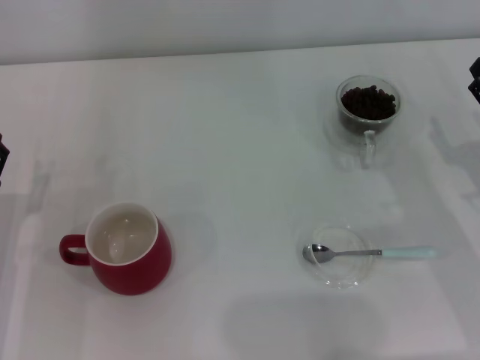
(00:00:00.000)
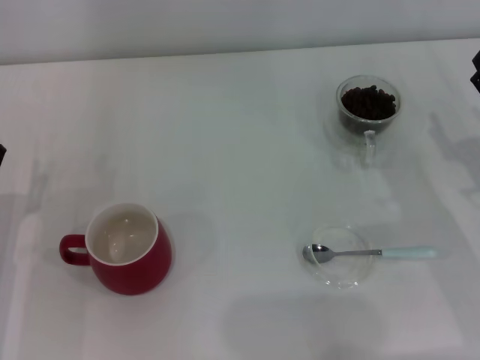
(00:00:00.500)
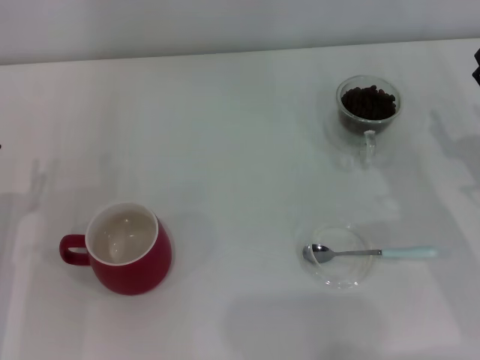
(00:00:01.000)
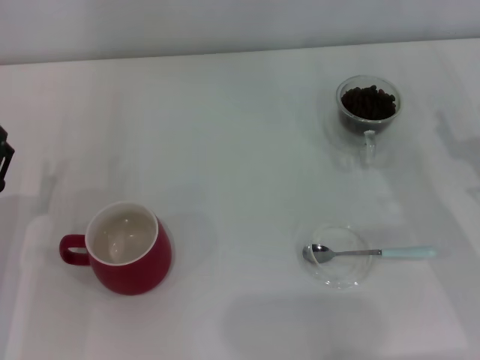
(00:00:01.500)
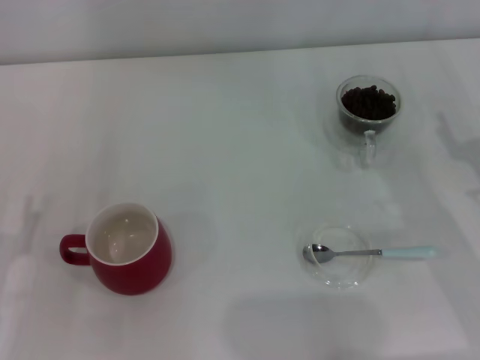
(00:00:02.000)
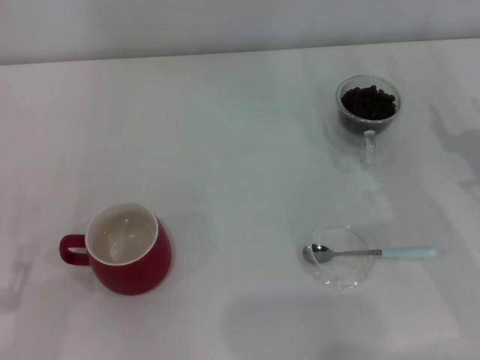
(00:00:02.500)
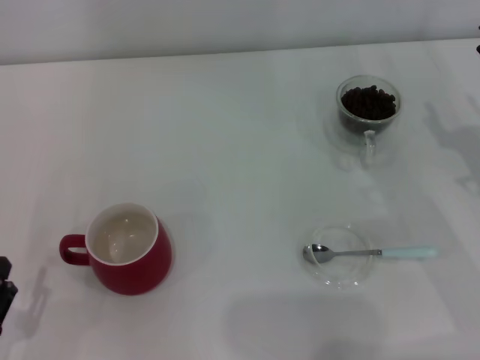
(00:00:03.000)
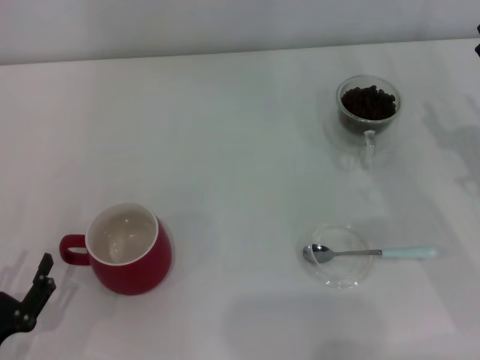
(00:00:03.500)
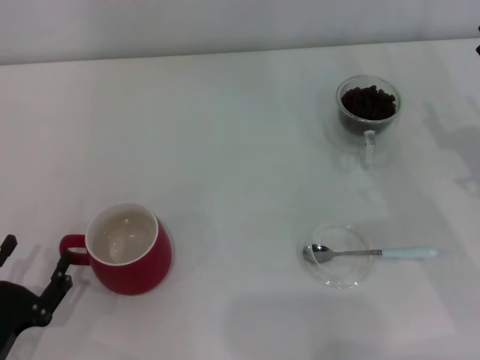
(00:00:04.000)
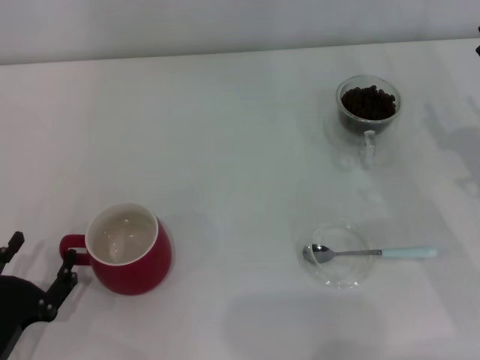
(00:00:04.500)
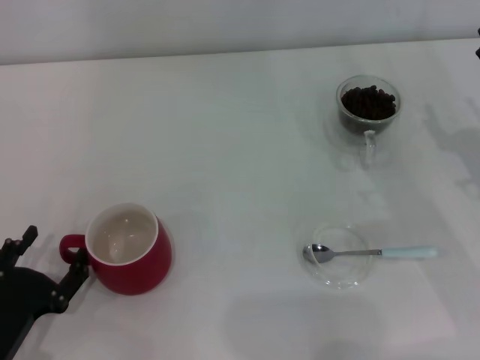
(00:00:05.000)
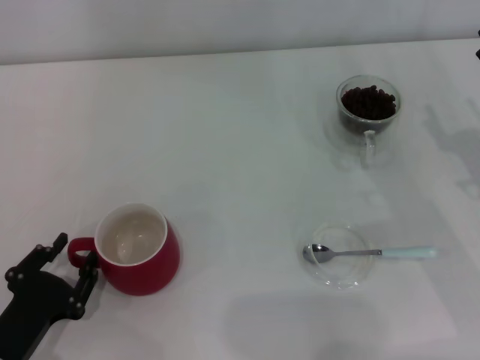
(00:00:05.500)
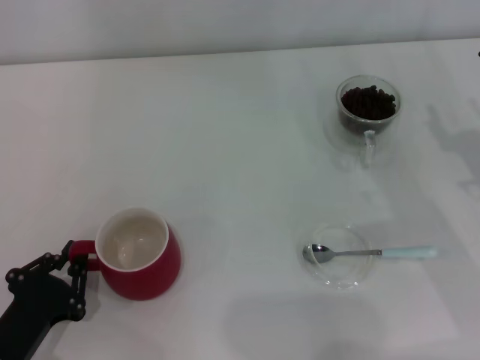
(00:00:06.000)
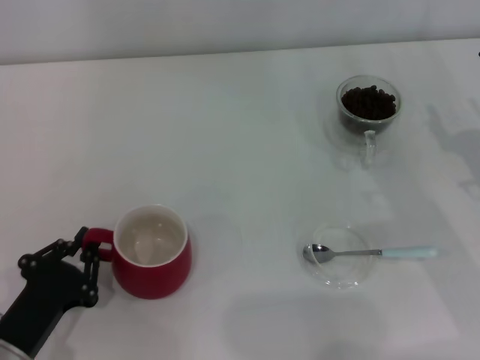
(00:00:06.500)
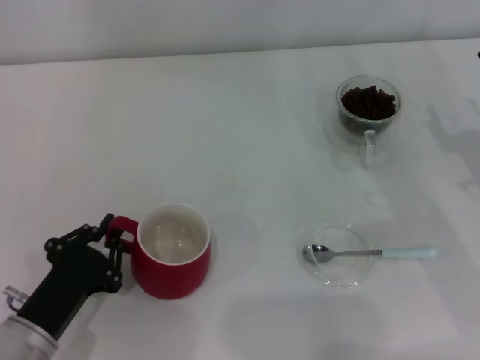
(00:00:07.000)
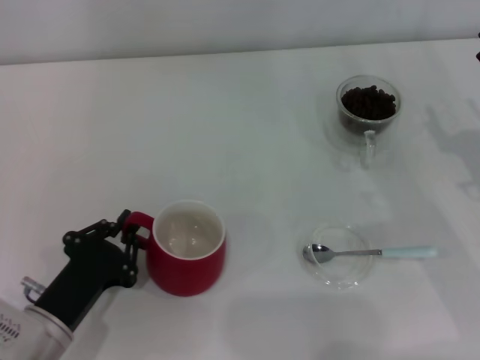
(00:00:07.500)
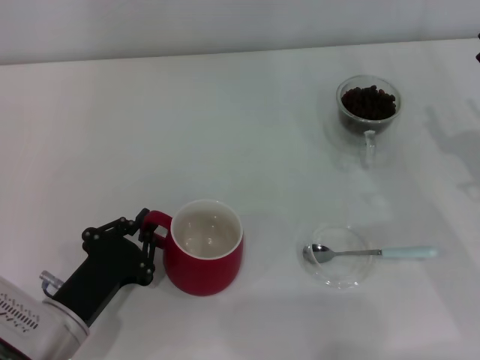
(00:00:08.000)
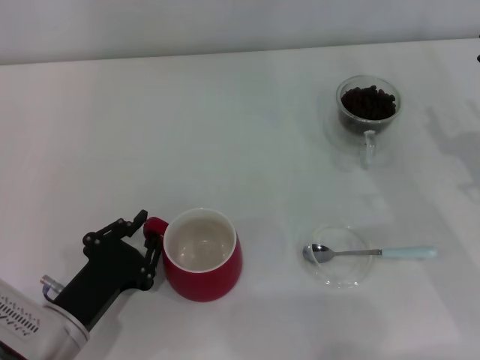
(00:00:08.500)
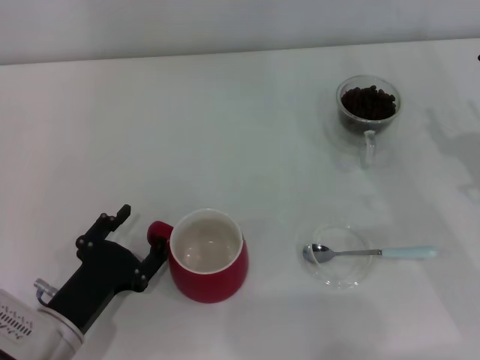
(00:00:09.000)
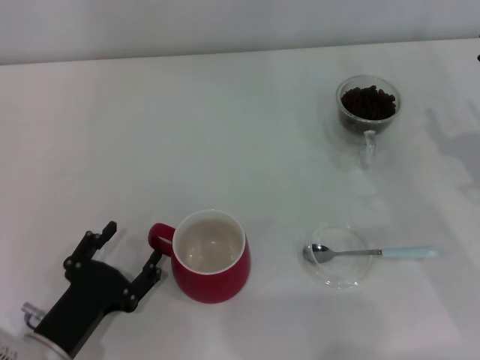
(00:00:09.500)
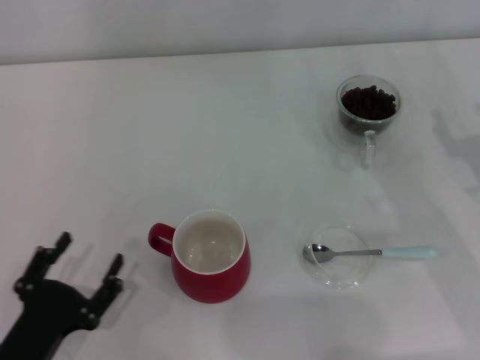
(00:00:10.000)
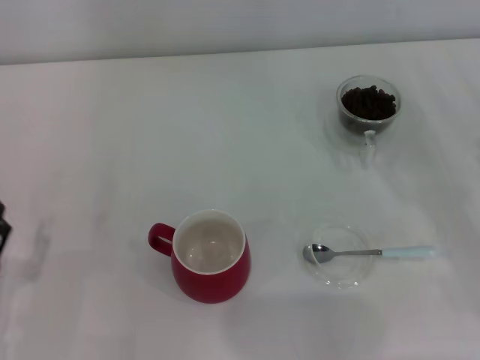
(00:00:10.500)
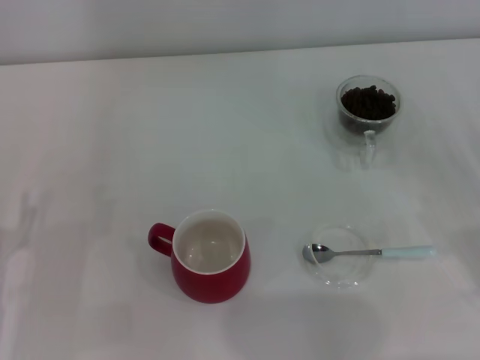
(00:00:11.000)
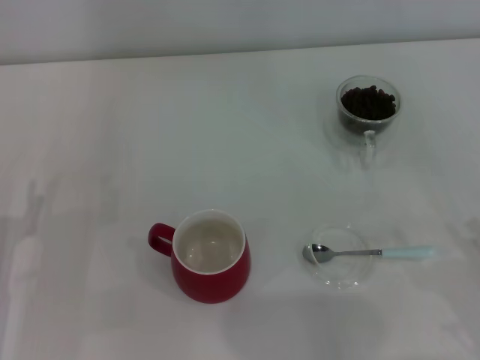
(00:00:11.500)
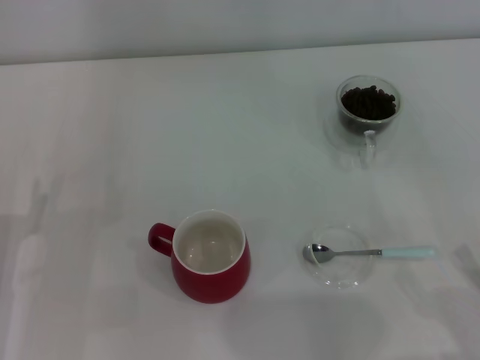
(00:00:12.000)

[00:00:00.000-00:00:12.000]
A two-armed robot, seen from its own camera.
Task of the whole recording: Use a blue spoon to take out the coffee beans from the glass and pour them into the red cup.
Step, 00:00:00.000 to 00:00:09.500: Move the cup to the center of view with the left gripper.
00:00:02.000 to 00:00:04.000: The left gripper is displaced backward by about 5 cm.
00:00:04.000 to 00:00:06.000: The left gripper closes its fingers.
00:00:06.000 to 00:00:08.000: The left gripper shifts approximately 5 cm to the right.
00:00:08.000 to 00:00:10.000: The left gripper is displaced backward by approximately 5 cm, and opens.
00:00:10.000 to 00:00:12.000: The left gripper is displaced forward by about 10 cm; the right gripper is displaced backward by roughly 20 cm.

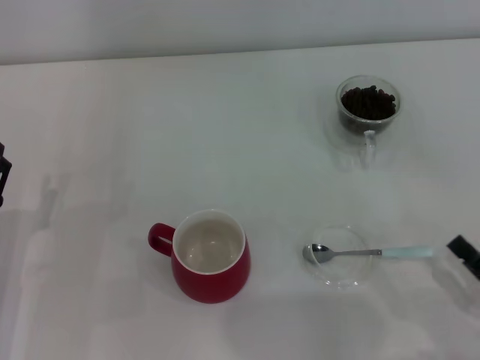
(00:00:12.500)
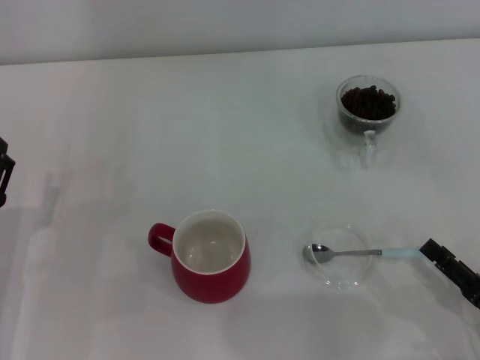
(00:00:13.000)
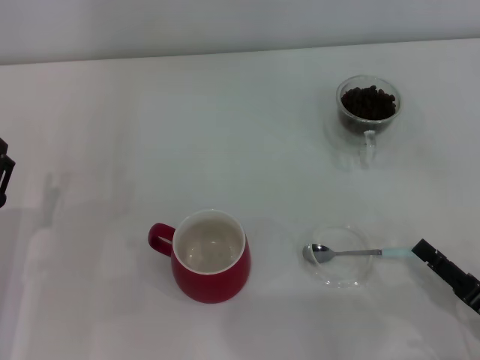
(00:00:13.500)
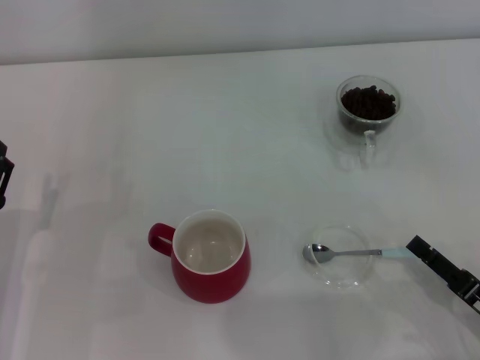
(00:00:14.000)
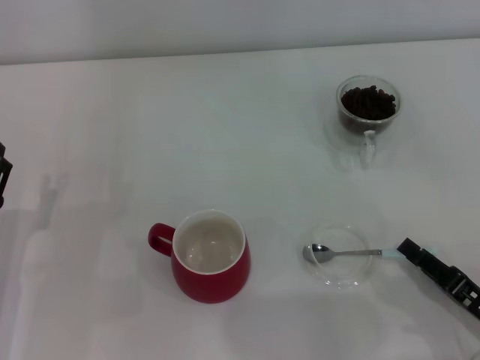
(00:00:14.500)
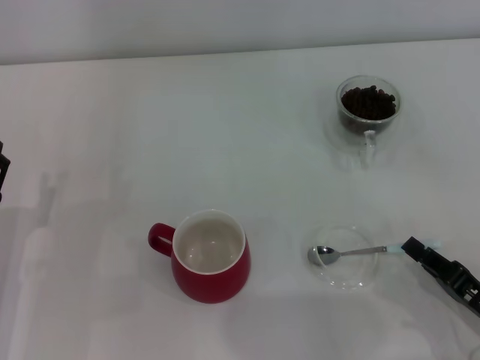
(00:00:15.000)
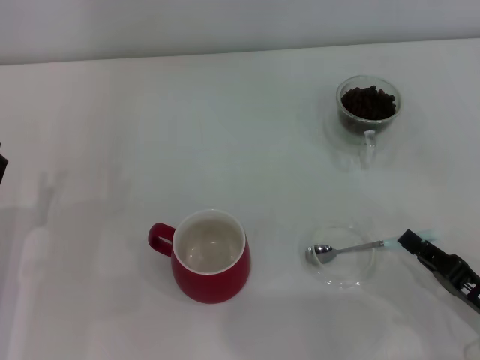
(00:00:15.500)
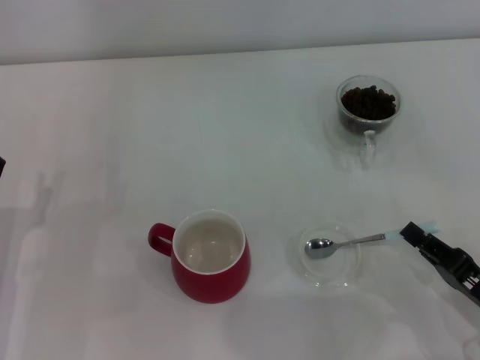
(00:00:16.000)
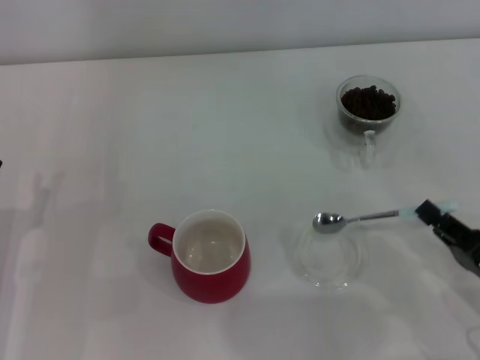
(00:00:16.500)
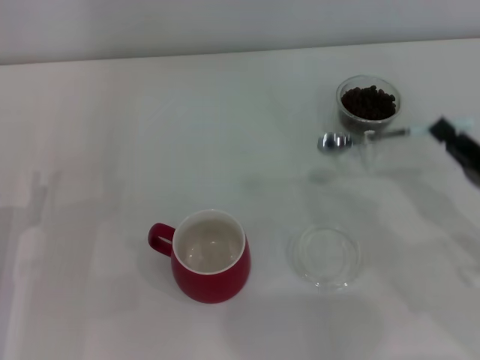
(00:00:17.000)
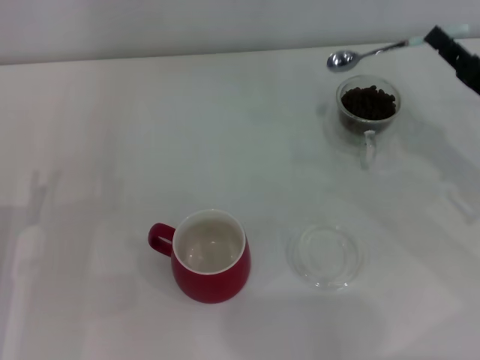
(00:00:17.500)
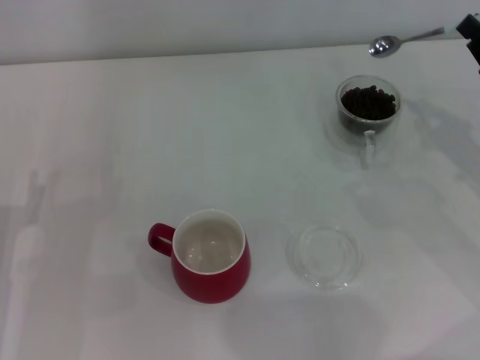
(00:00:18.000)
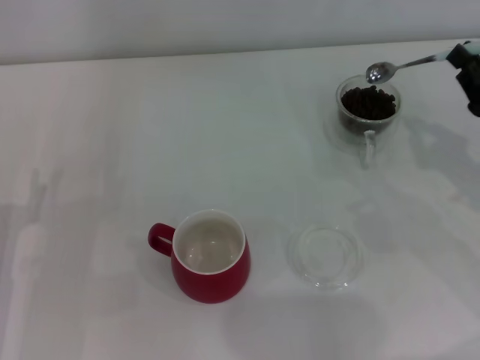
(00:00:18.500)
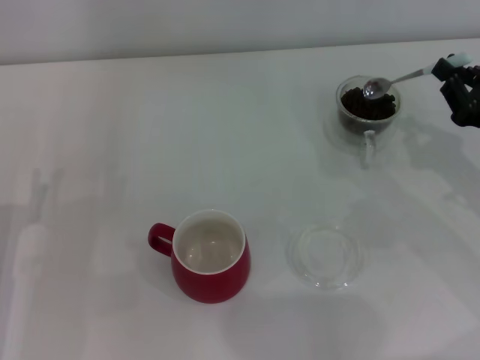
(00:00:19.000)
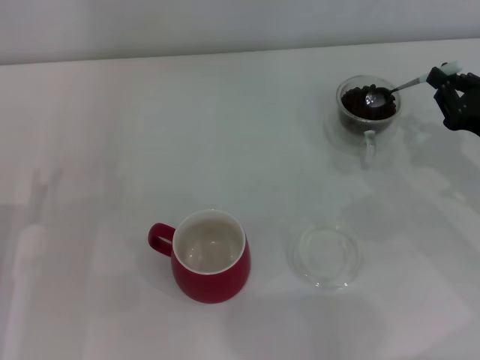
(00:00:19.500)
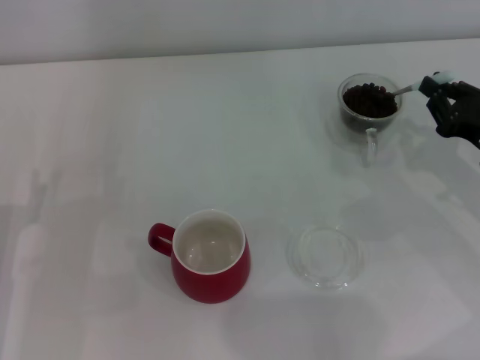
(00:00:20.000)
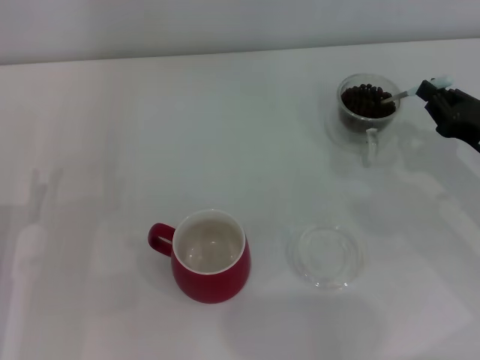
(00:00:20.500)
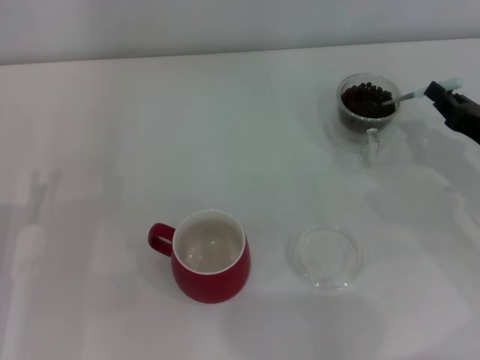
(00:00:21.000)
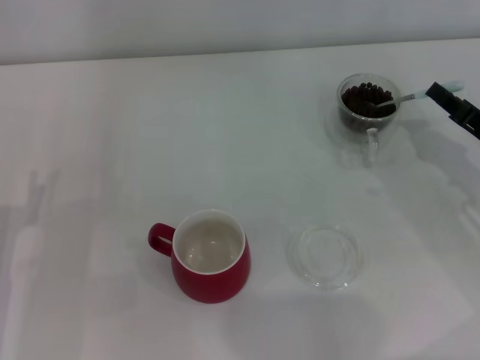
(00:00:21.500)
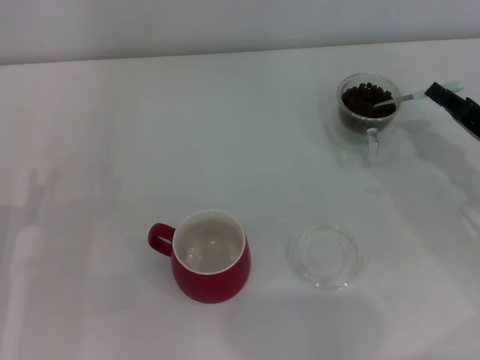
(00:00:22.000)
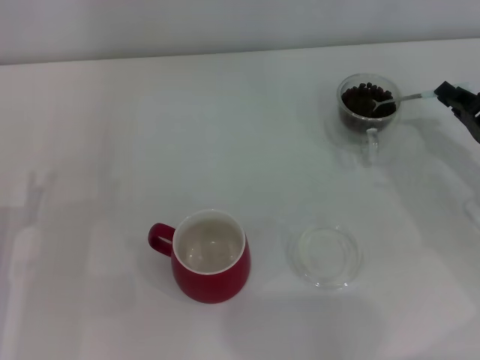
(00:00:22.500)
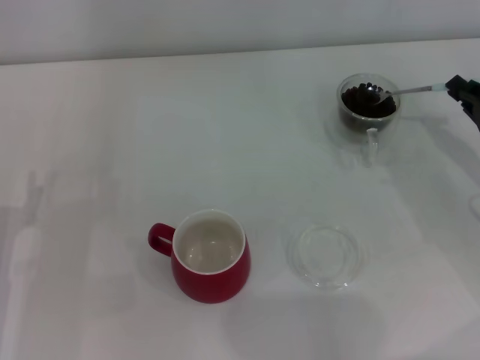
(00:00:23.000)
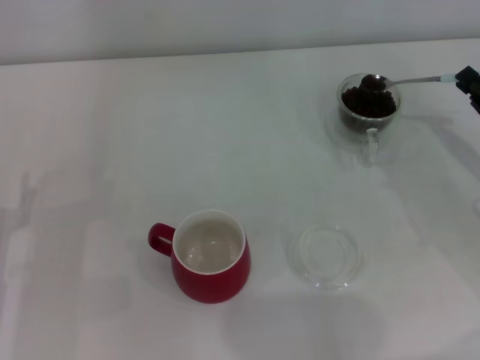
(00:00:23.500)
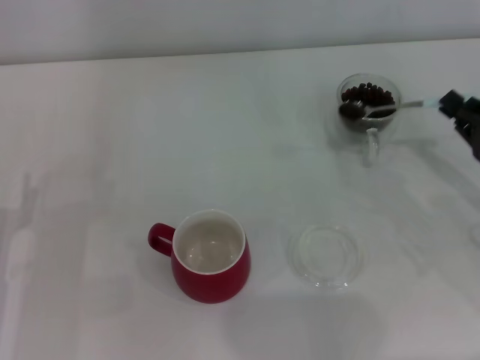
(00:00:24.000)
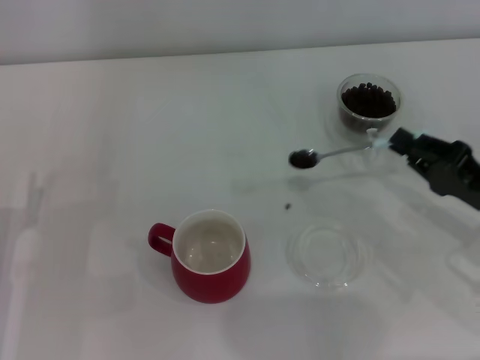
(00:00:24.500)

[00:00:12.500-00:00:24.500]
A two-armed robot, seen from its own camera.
Task of the whole recording: Use a blue spoon to take out the coffee beans from the glass and pour them into the red cup.
Step, 00:00:12.500 to 00:00:16.500: Pick up the spoon with the right gripper.
00:00:12.500 to 00:00:14.500: There are only small adjustments of the grippers.
00:00:14.500 to 00:00:16.500: The right gripper closes up.
00:00:16.500 to 00:00:18.500: The right gripper travels forward and upward by approximately 15 cm.
00:00:18.500 to 00:00:20.500: The grippers move only a little.
00:00:22.500 to 00:00:24.500: The right gripper moves backward, about 5 cm.

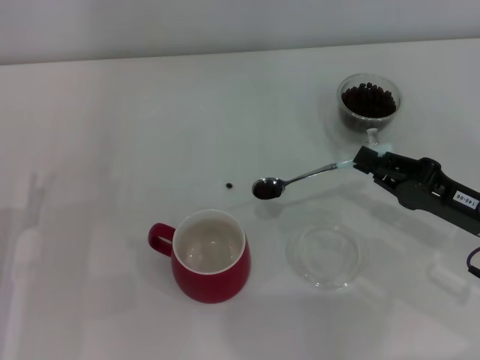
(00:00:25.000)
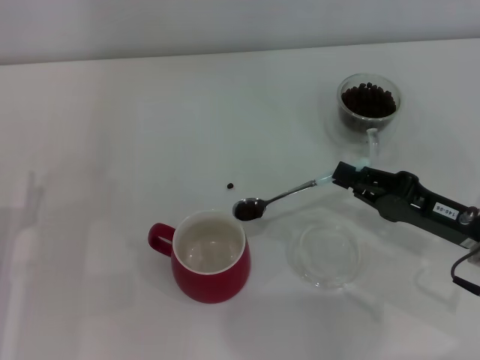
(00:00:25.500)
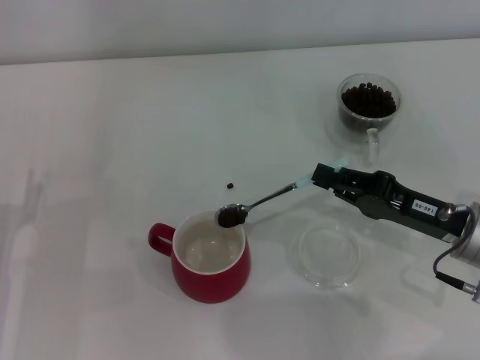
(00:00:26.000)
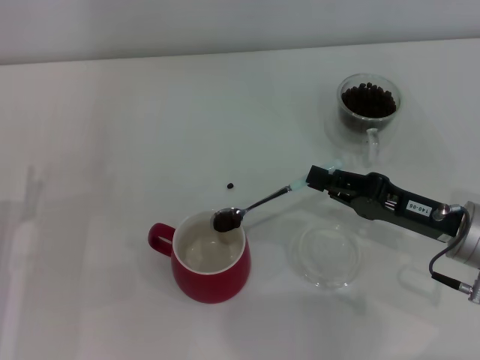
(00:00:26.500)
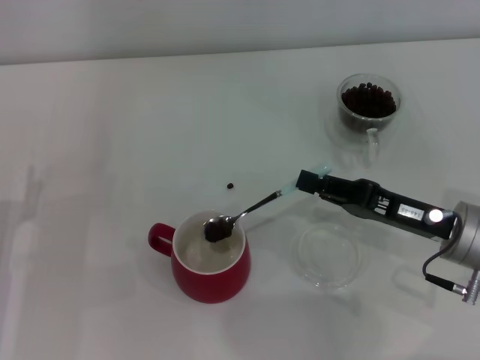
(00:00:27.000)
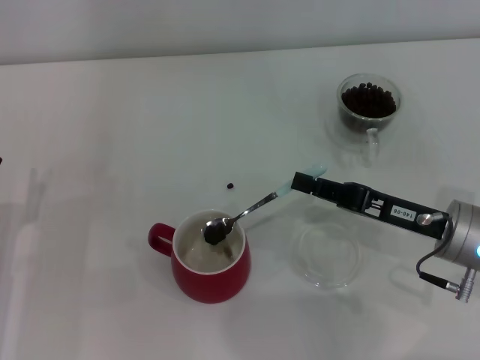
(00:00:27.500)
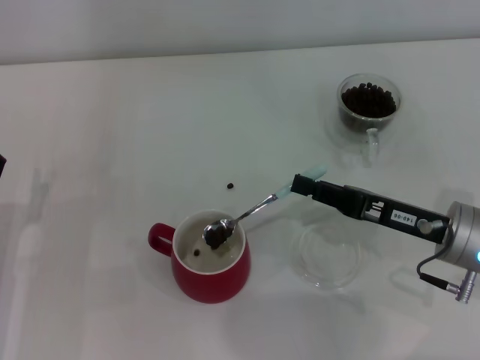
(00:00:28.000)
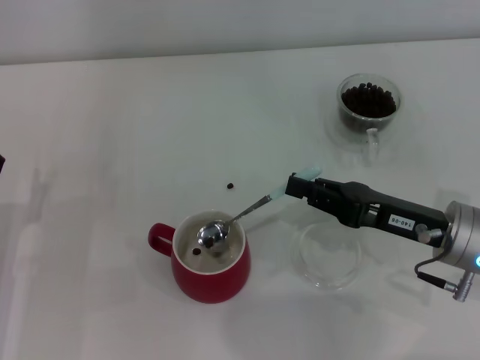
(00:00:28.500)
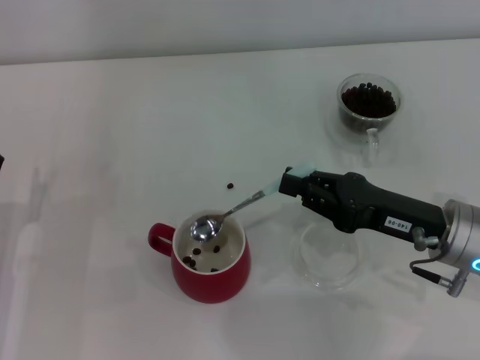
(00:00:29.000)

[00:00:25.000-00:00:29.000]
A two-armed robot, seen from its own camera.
Task of the whole recording: Use a blue spoon to take out the coffee beans from the glass and pour them into the red cup.
Step, 00:00:25.000 to 00:00:29.000: Scoop a spoonful of beans into the cup with the right gripper.
00:00:25.000 to 00:00:27.000: The grippers make only small movements.
